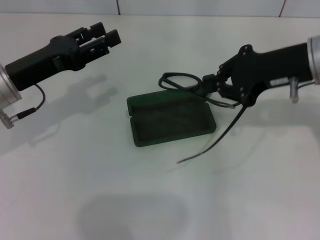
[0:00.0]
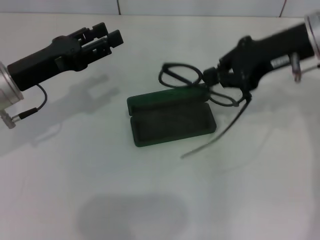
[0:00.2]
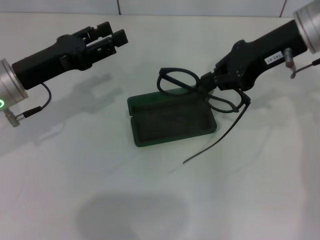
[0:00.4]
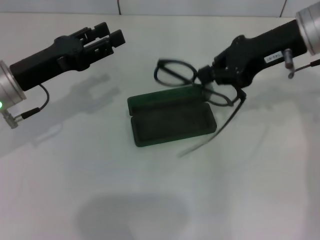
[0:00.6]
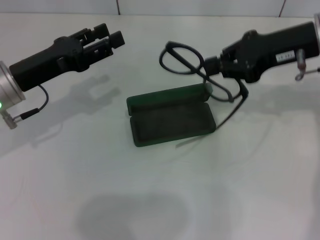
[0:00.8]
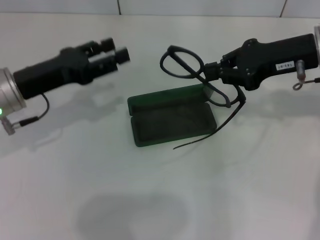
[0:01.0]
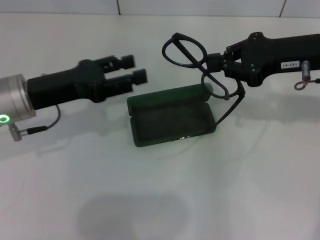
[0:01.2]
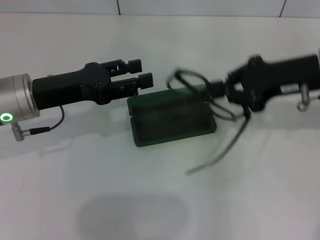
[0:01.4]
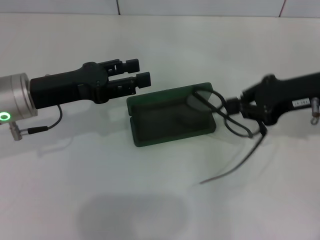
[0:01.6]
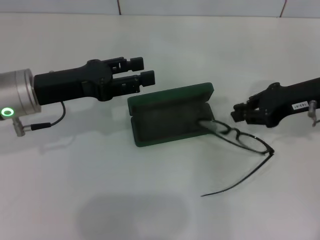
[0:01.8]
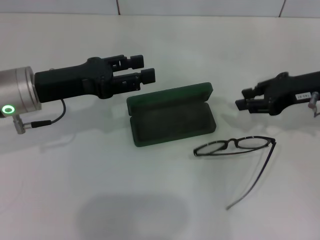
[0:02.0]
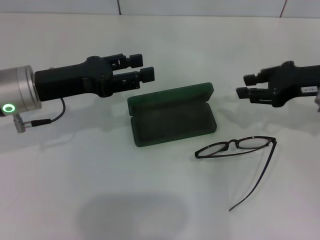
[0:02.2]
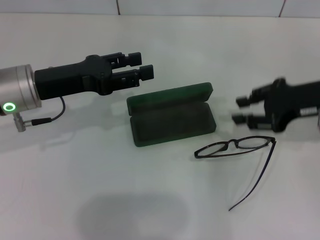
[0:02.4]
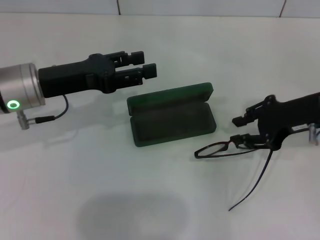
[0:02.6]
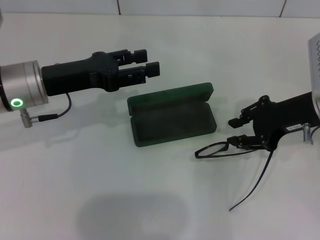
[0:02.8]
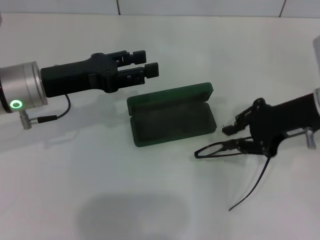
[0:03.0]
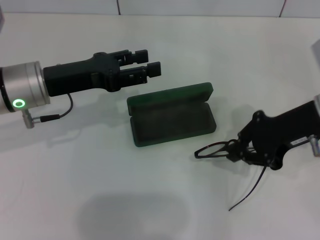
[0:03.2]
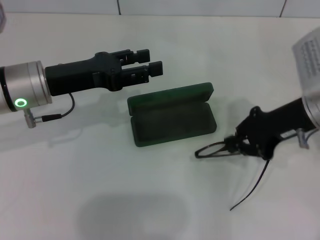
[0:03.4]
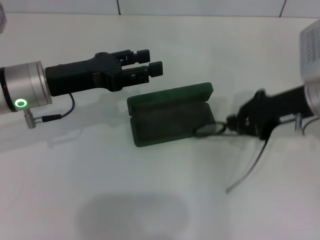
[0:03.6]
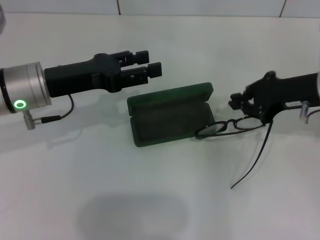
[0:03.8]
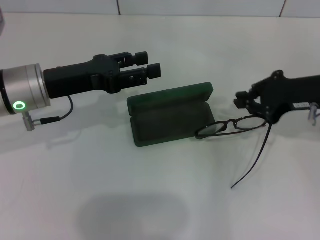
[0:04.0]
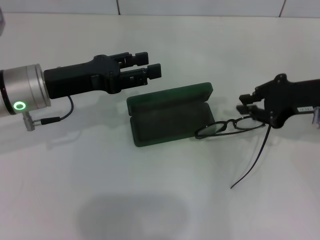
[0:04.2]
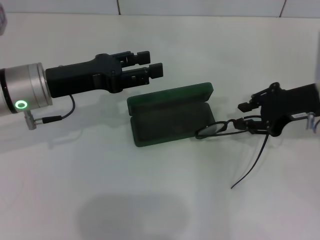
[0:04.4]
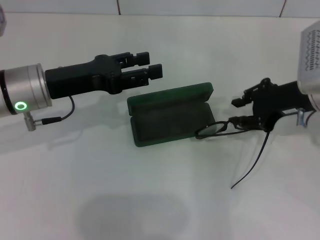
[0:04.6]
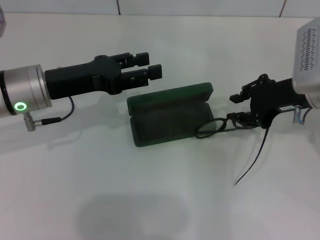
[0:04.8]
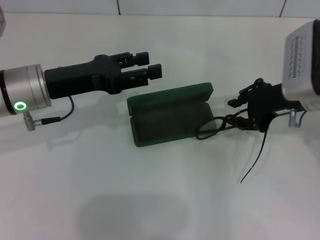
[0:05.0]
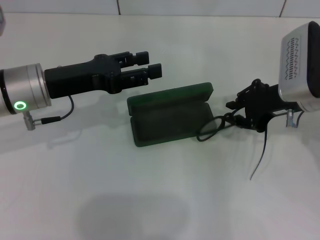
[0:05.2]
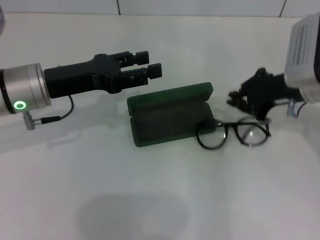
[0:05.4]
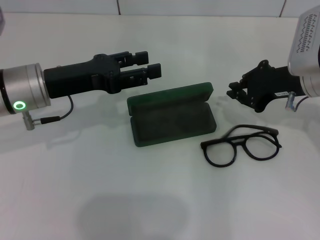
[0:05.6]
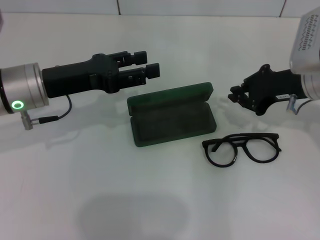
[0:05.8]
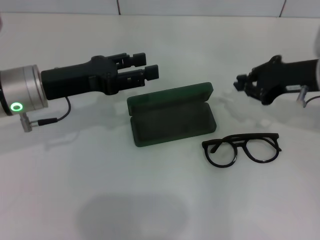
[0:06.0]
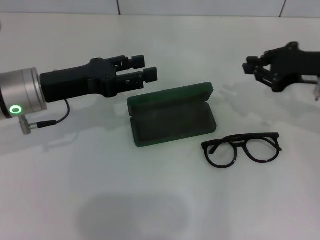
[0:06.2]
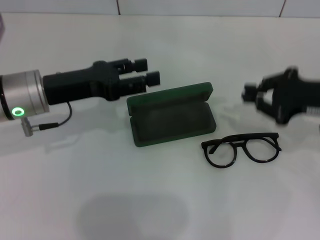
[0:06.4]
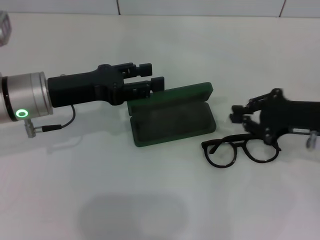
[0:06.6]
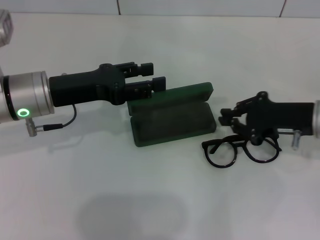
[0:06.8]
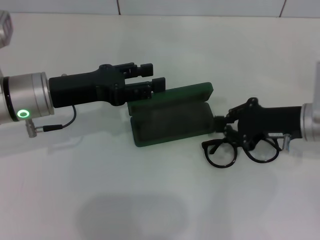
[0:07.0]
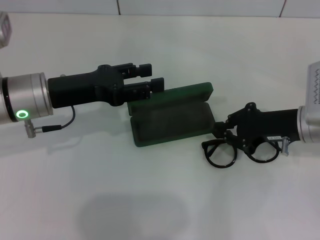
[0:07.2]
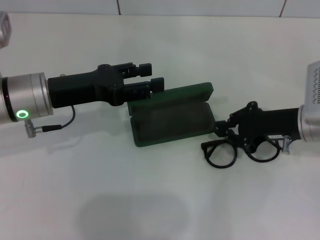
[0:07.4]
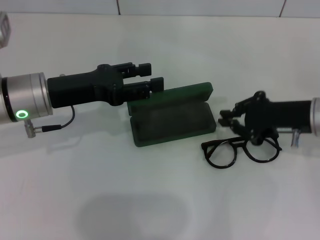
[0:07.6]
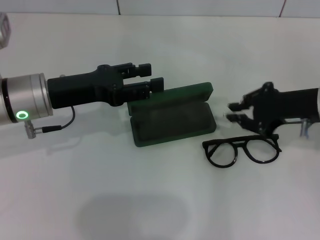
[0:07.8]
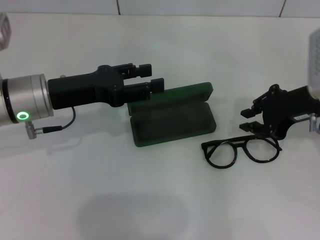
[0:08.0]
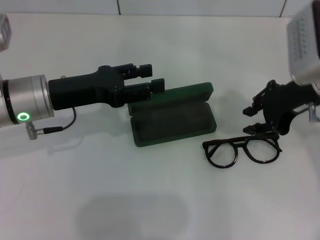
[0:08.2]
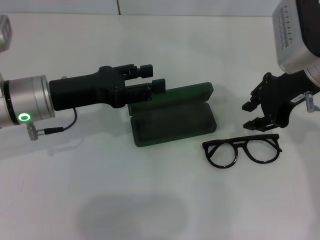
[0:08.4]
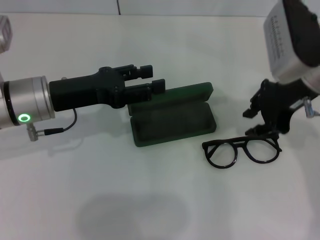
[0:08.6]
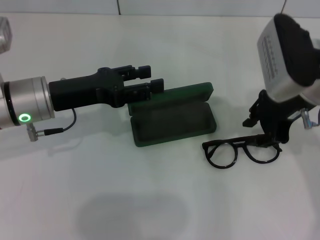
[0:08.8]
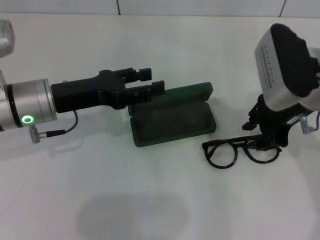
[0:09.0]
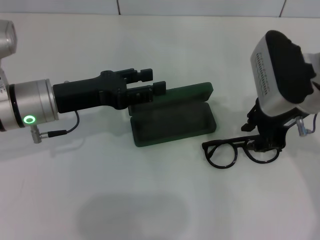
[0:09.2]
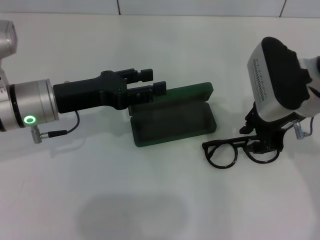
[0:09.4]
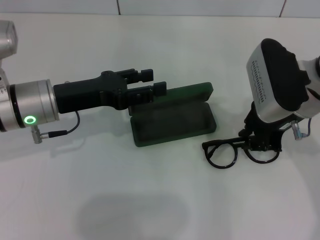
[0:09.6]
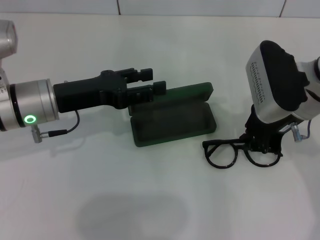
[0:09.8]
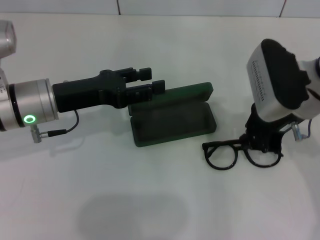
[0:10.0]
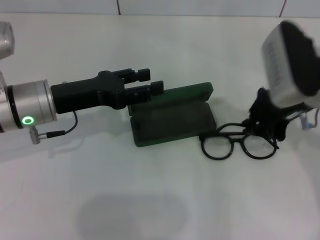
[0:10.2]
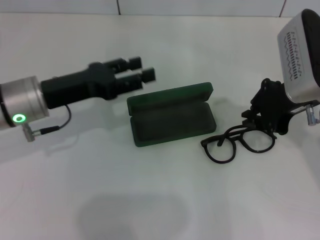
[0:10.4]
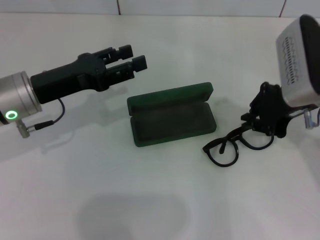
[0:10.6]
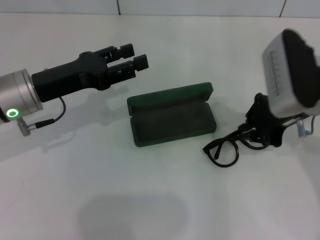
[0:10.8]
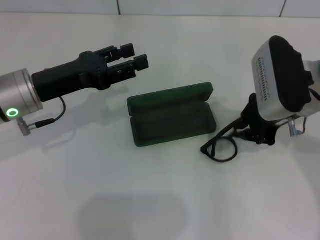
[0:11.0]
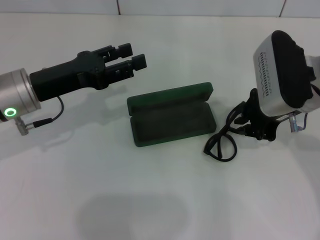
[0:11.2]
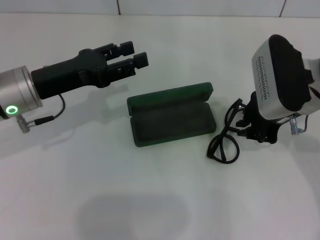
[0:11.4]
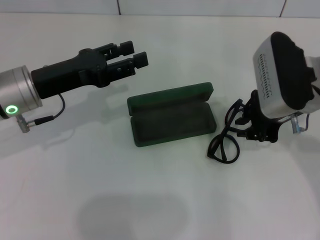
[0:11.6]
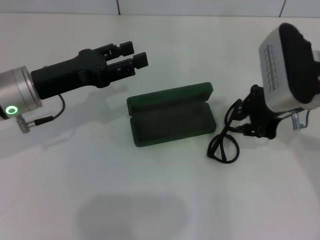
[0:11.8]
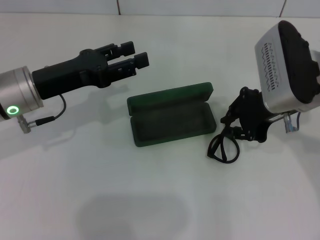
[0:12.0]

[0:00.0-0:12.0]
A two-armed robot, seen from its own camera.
0:00.0 to 0:01.6: The right gripper moves roughly 5 cm.
0:03.0 to 0:04.4: The grippers make only small movements.
0:04.4 to 0:06.0: There are only small adjustments of the grippers.
0:06.0 to 0:07.6: The right gripper shifts by about 5 cm.
0:07.6 to 0:09.0: The right gripper shifts some 10 cm upward and to the left.
0:09.0 to 0:10.4: The right gripper closes up.
0:10.4 to 0:12.0: The grippers move only a little.

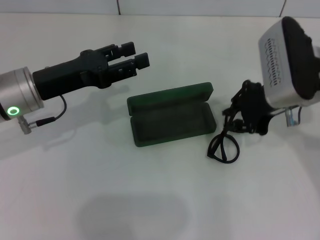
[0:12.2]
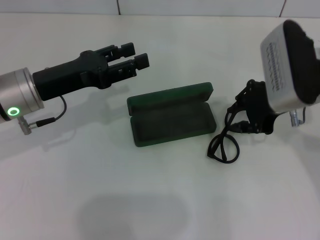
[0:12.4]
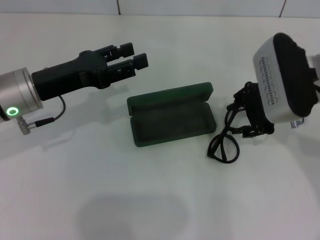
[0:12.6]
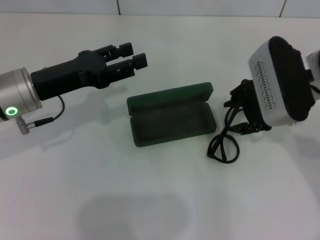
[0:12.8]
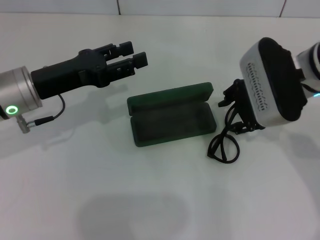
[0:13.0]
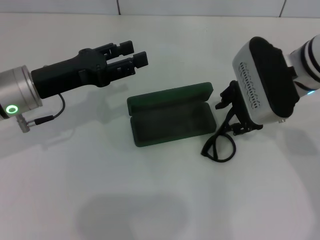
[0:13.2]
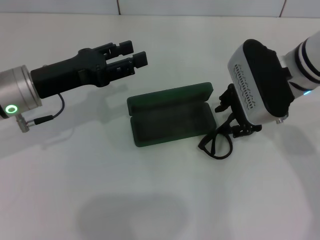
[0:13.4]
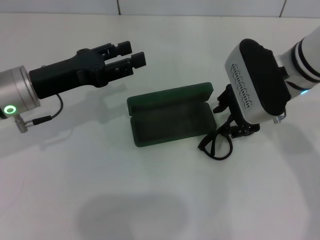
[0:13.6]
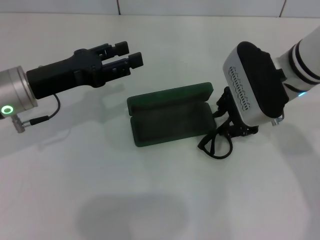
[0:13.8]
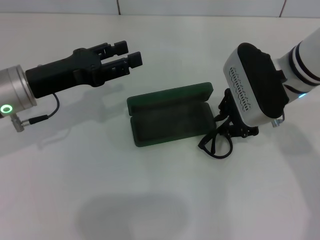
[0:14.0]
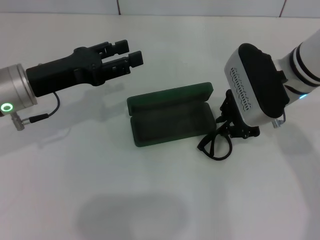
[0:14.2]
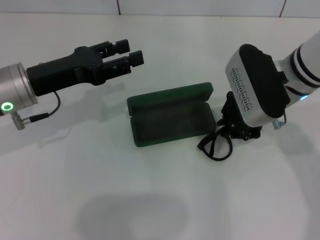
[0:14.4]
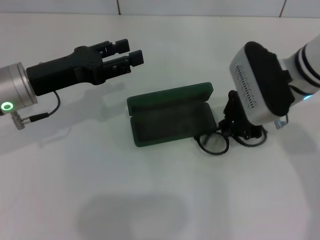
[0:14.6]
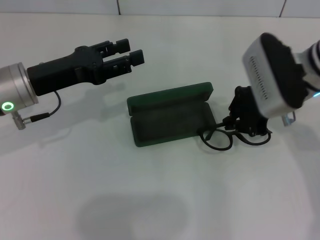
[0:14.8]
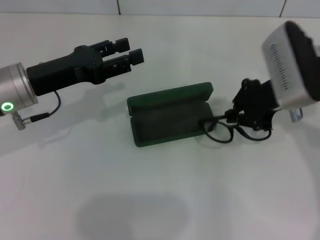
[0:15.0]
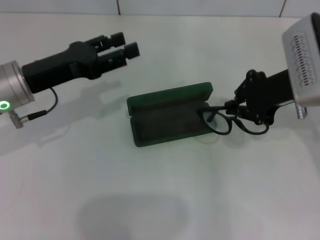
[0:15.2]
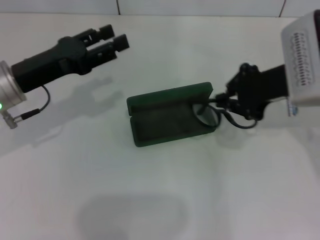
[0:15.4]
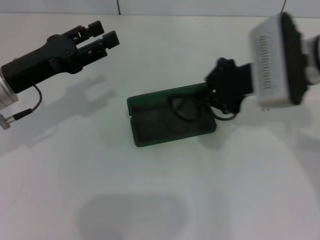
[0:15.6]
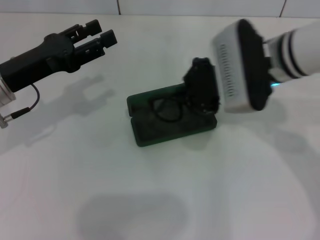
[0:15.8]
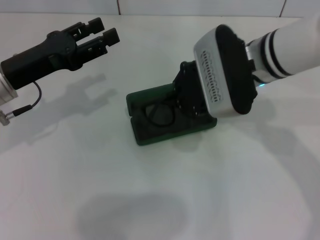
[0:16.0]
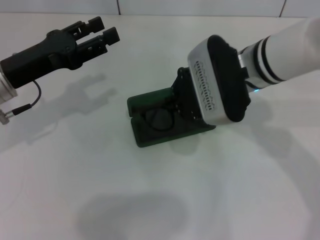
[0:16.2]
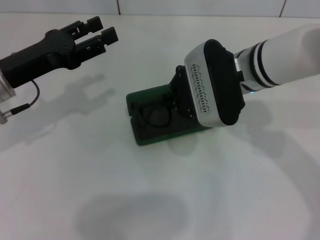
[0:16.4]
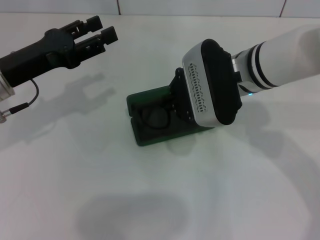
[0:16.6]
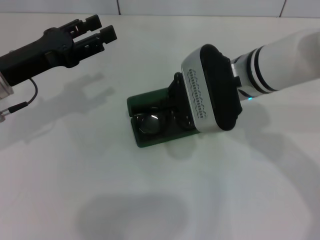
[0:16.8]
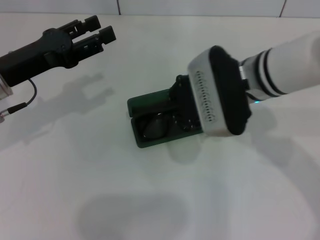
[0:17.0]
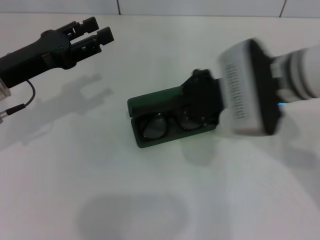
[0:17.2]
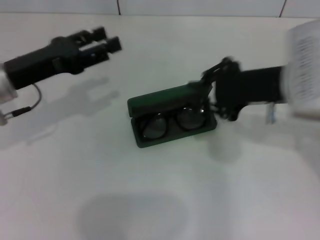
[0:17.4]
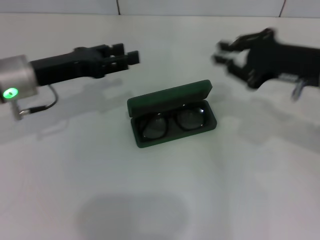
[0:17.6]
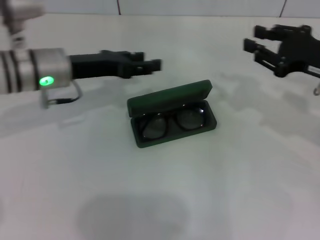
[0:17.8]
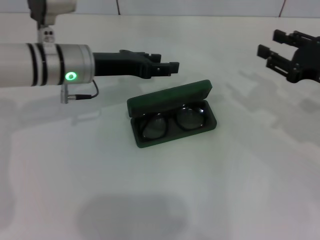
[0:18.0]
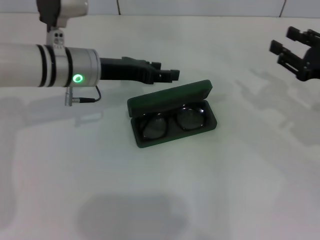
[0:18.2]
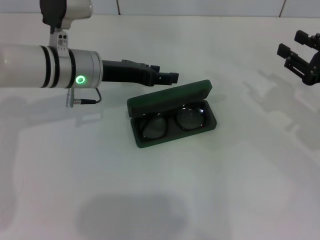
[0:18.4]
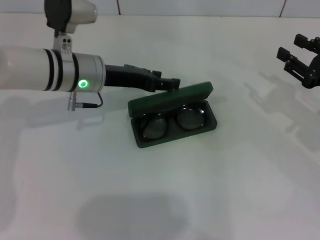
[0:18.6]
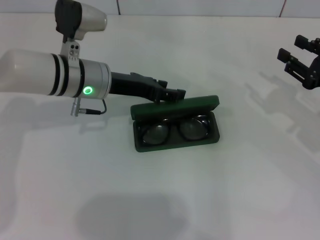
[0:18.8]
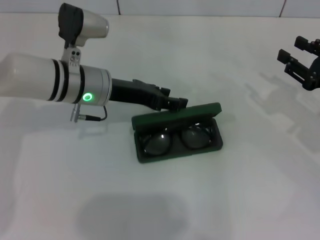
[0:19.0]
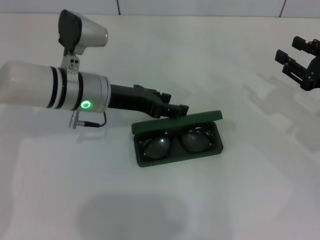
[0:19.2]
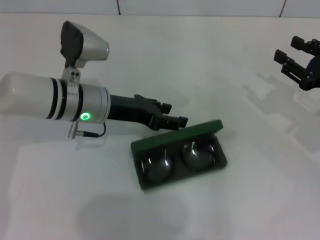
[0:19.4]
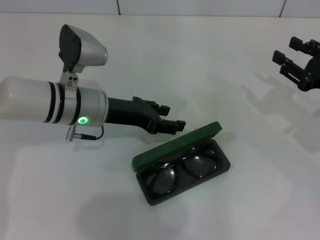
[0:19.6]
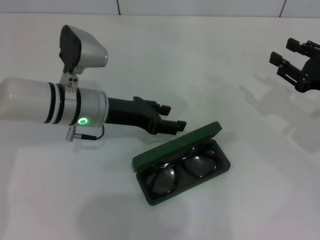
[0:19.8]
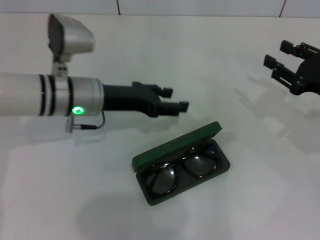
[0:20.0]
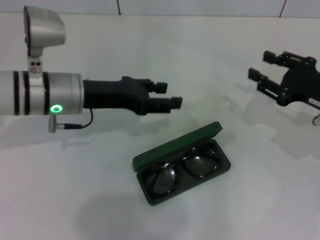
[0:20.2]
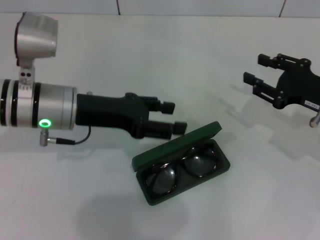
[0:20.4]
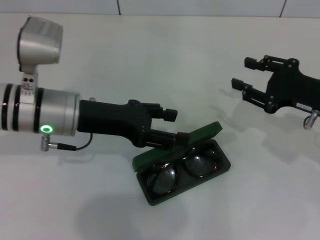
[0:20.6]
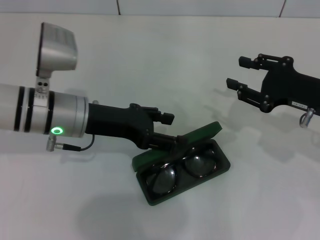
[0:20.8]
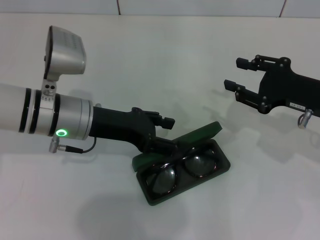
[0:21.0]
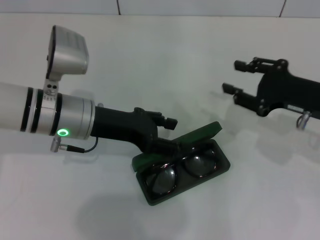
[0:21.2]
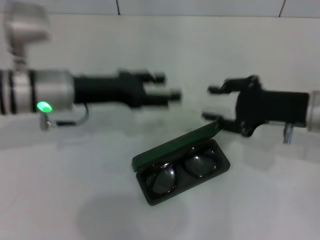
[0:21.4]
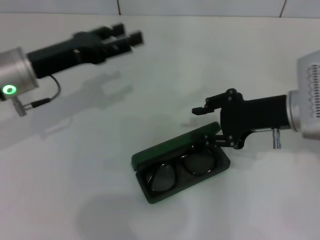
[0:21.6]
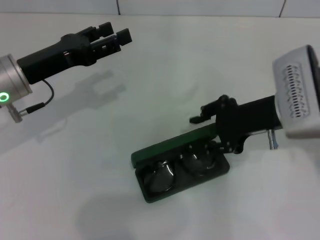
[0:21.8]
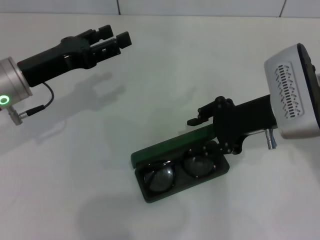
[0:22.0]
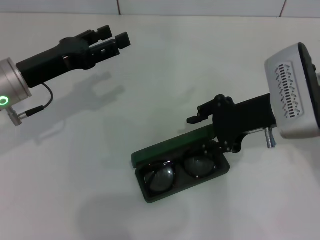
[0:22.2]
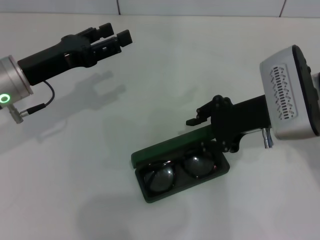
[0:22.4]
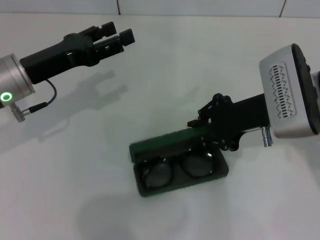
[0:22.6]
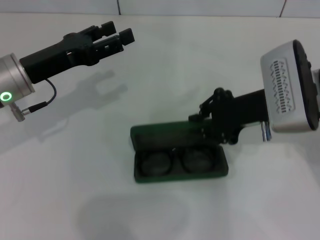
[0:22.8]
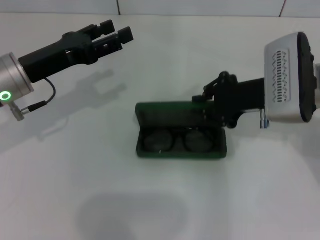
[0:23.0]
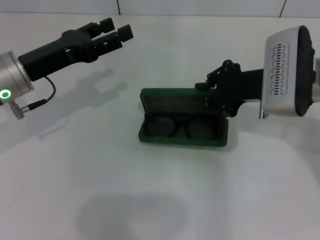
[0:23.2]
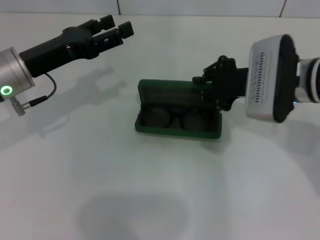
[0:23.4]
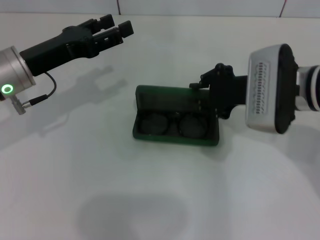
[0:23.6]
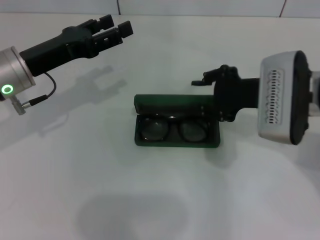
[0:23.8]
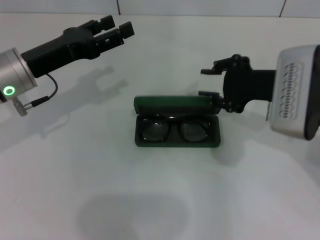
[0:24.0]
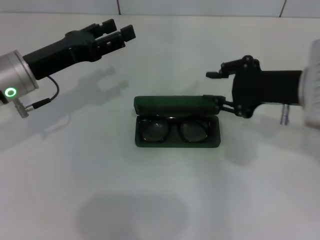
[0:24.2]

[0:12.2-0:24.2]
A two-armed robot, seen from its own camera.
Step, 0:12.2 to 0:17.2: Put the glasses into the case with your right hand.
0:12.2 to 0:13.8: There are only small adjustments of the grippers.
0:13.8 to 0:15.2: The right gripper heads to the right, covering roughly 5 cm, and closes its fingers.
0:15.2 to 0:16.6: The right gripper shifts some 10 cm to the left.
0:16.6 to 0:18.2: The left gripper moves to the right and forward, roughly 10 cm, while the right gripper goes approximately 20 cm to the right, and opens its fingers.
0:18.2 to 0:19.8: The left gripper shifts by about 5 cm.
0:21.2 to 0:22.6: The grippers both shift to the left by roughly 10 cm.
